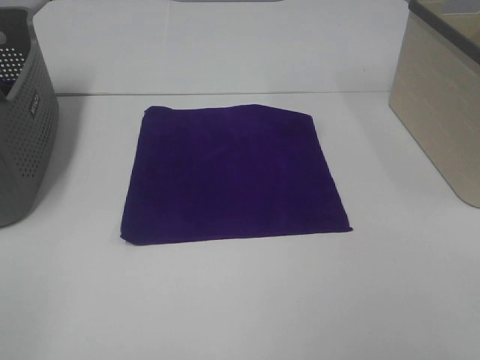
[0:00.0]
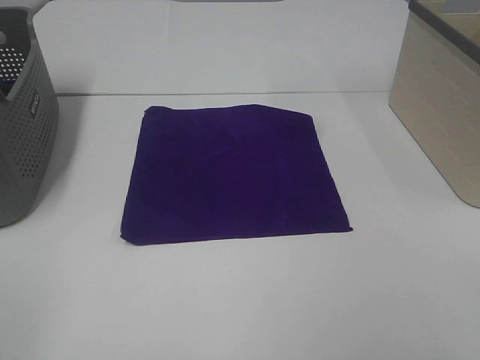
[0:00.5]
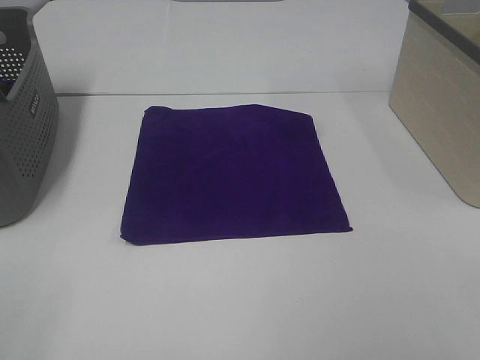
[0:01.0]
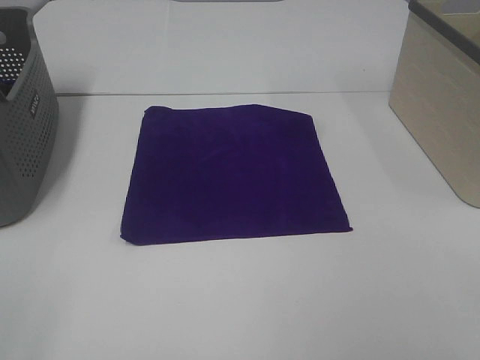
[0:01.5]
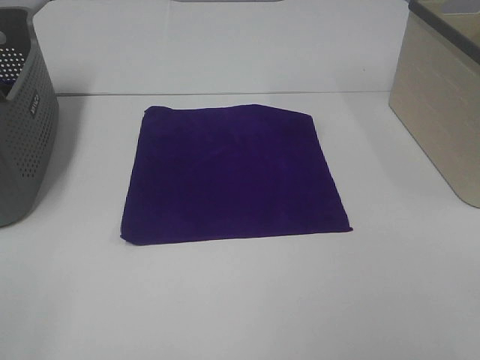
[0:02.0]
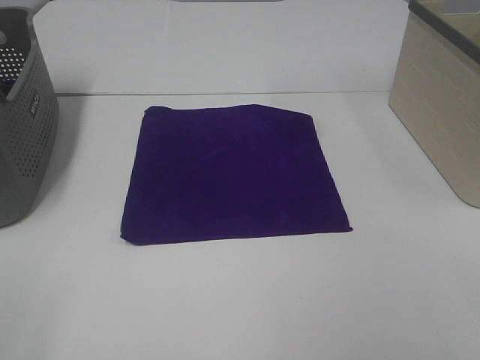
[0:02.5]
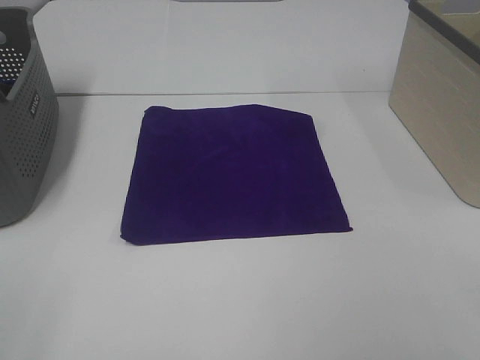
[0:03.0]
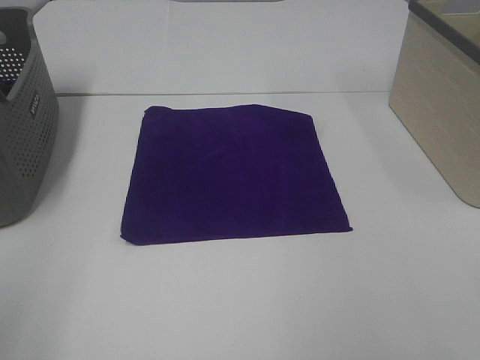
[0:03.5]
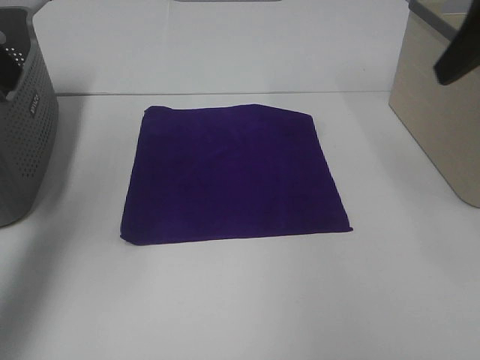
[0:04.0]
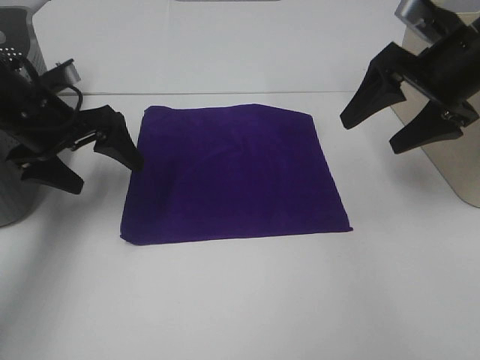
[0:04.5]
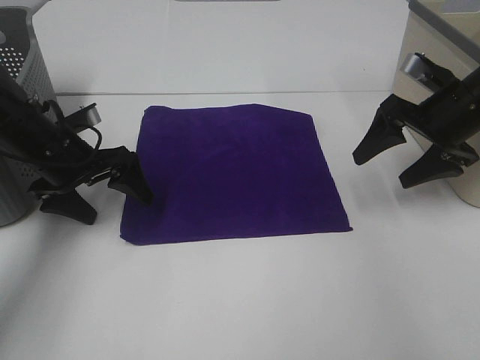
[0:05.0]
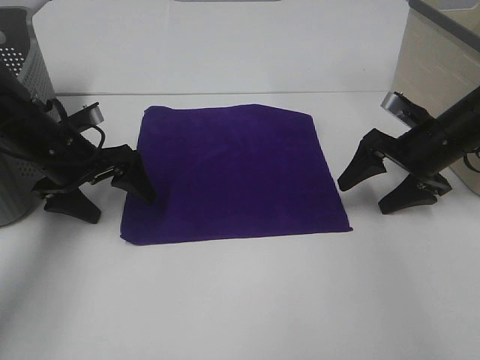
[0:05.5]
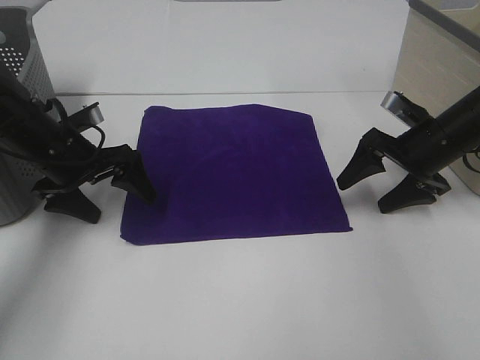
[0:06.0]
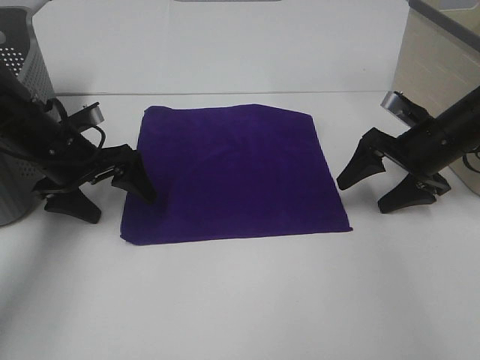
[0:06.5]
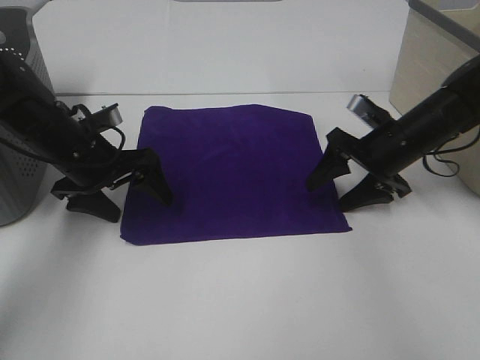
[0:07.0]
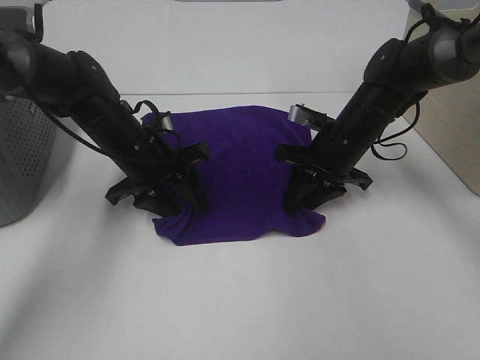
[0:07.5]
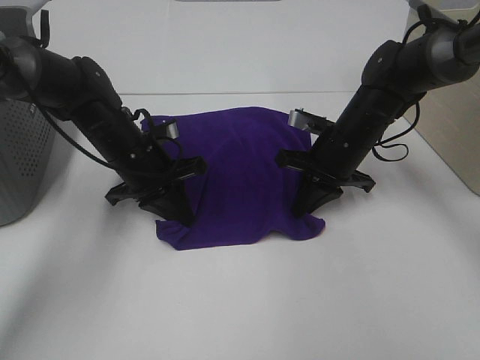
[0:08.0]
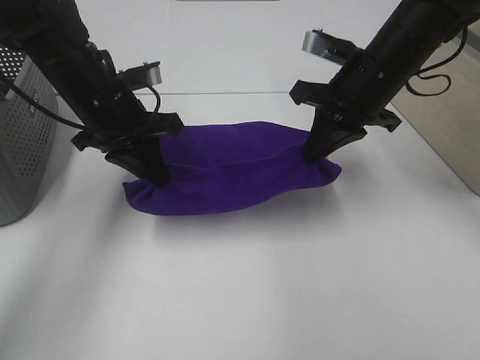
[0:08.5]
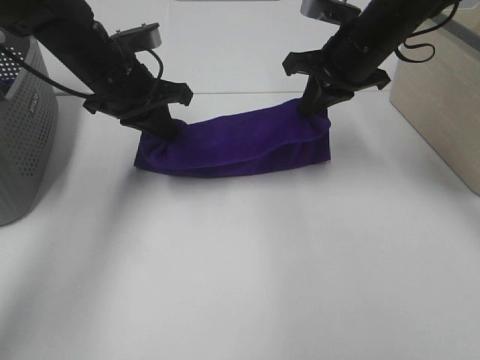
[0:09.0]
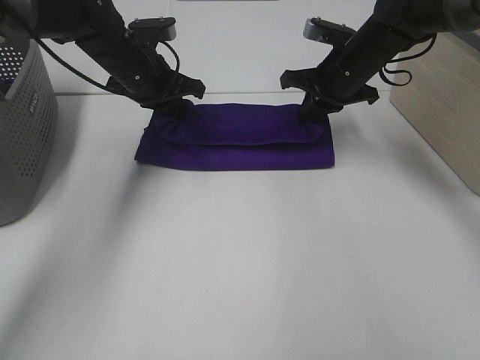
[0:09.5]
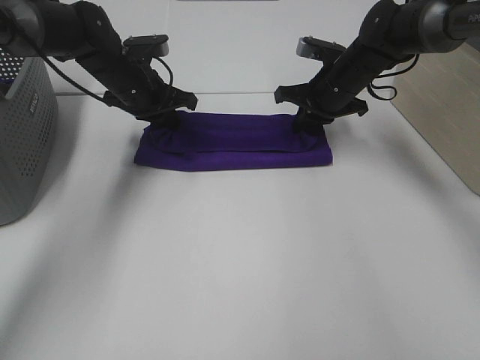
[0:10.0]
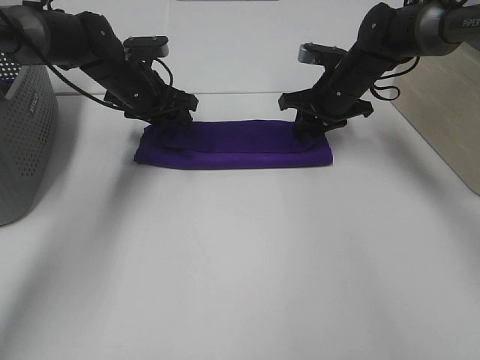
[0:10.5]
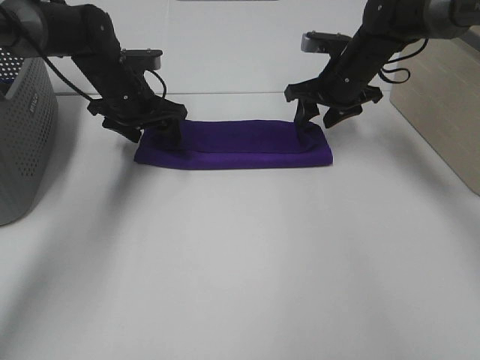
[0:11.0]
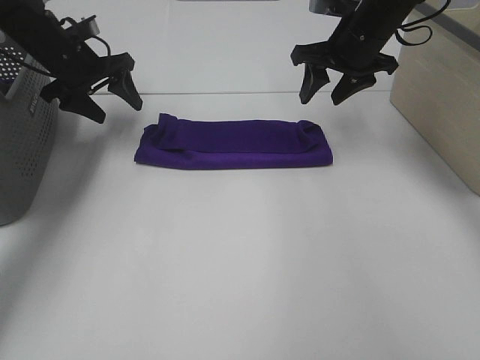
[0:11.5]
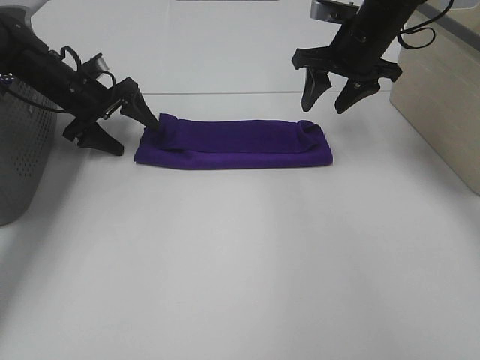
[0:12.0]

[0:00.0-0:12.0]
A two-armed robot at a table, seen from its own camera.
Task of the whole recording: Fold towels.
Step, 0:00.0 to 0:07.5: Left hand: grab the bottom left corner of purple towel.
Step, 0:00.0 to 0:07.5: Right hand: grab the bottom right corner of purple towel.
Step, 0:08.0 to 0:10.0: Left hand: fold the purple towel up.
Step, 0:08.0 to 0:10.0: Right hand: fold the purple towel up.
0:00.0 to 0:02.0: Neither gripper changes place.
0:02.0 to 0:04.0: Both grippers travel together forward, about 25 cm.
0:04.0 to 0:06.0: Both grippers travel together downward and forward, about 25 cm.
0:06.0 to 0:08.0: The right gripper heads to the left, covering about 10 cm, and closes its fingers. The left gripper moves to the right, roughly 10 cm, and closes its fingers.
0:08.0 to 0:10.0: Both grippers travel together forward, about 10 cm. The right gripper travels upward and back again, approximately 15 cm each way.
0:10.0 to 0:12.0: The left gripper travels to the left by about 10 cm, and opens. The right gripper is displaced upward by about 10 cm, and opens.

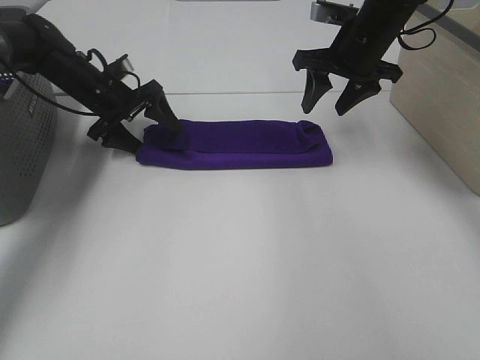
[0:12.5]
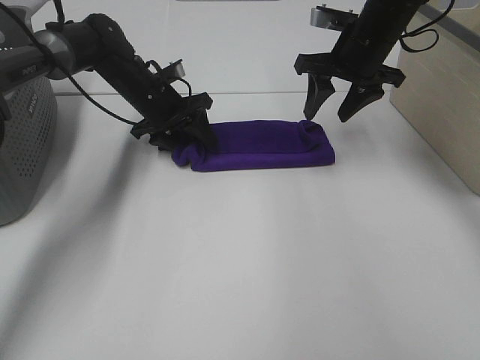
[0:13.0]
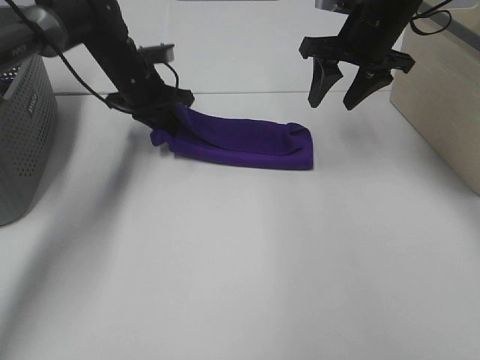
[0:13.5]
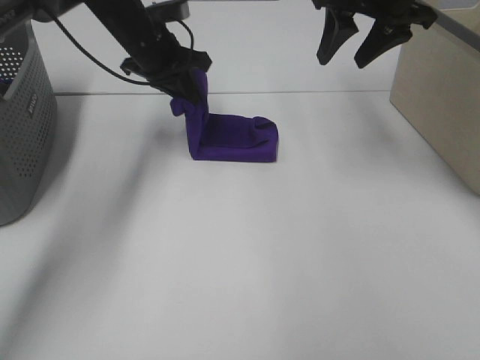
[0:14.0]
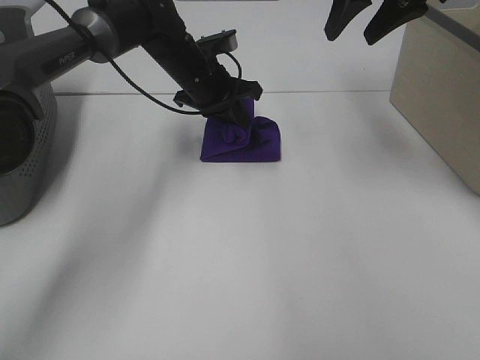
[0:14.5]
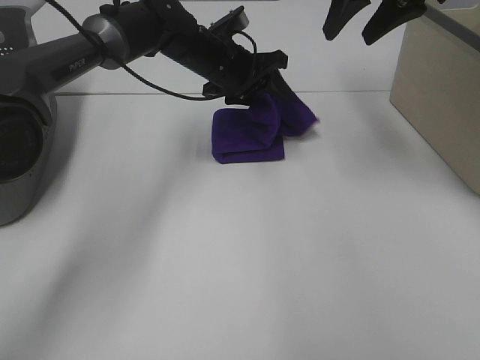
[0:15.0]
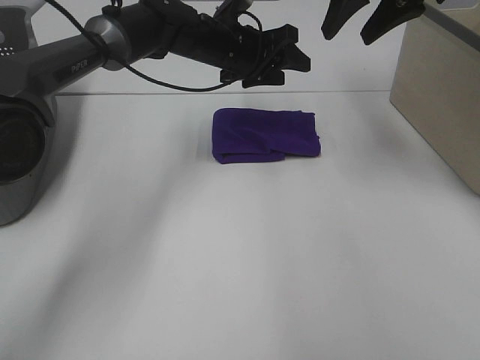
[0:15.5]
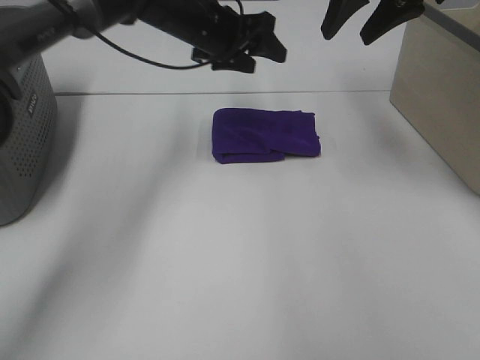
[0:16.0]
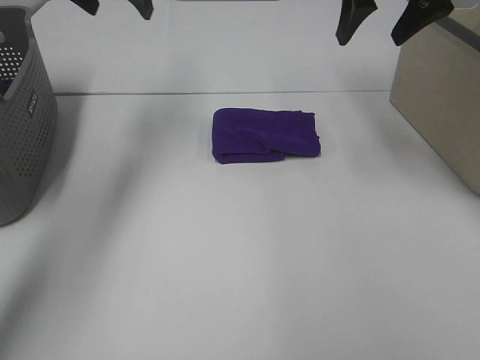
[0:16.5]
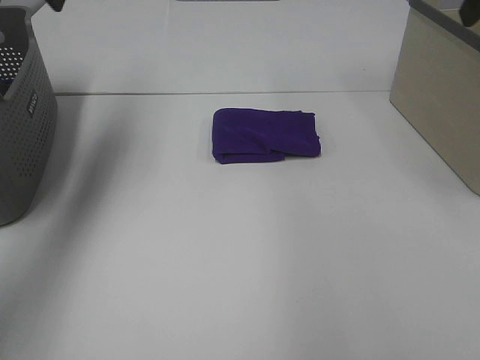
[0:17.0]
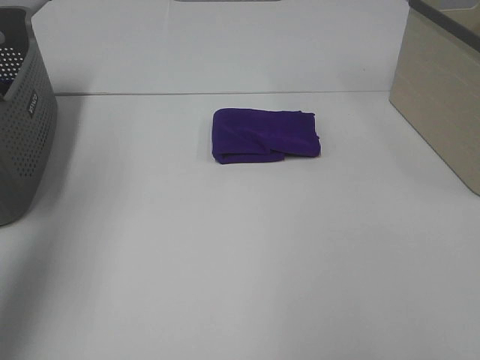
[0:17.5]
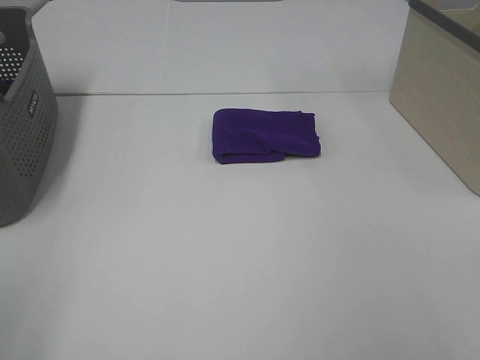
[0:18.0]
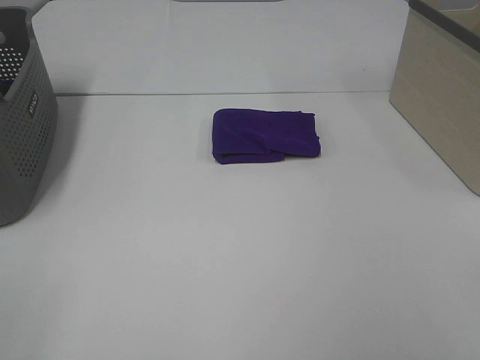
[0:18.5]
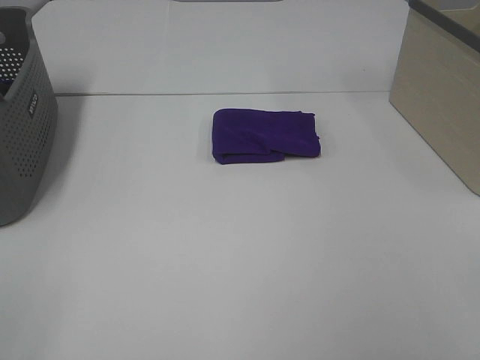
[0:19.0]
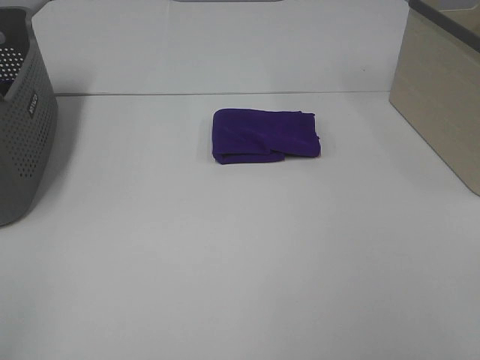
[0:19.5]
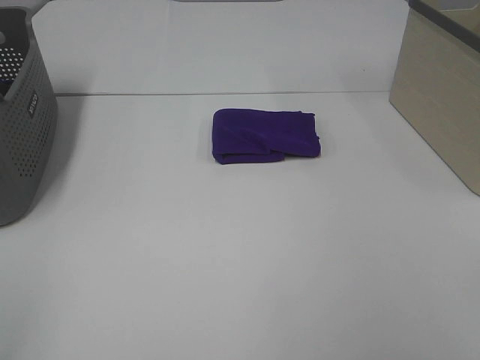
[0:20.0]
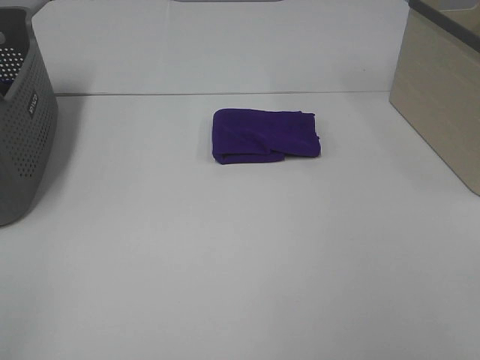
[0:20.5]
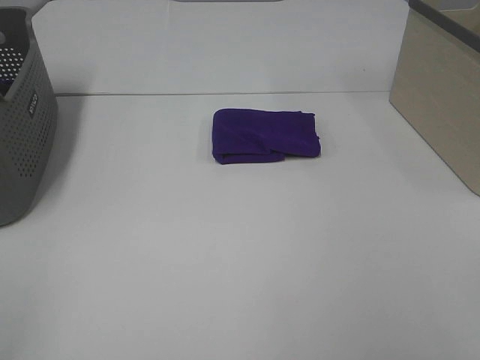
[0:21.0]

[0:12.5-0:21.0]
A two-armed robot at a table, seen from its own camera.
Task of the whole recording: Fold towels.
Step, 0:12.5 to 0:14.5: Left hand: fold the purple towel from left to right.
0:12.5 to 0:14.5: The left gripper travels to the right by approximately 15 cm, and closes up; the right gripper goes roughly 15 cm upward and backward.
0:14.5 to 0:16.5: The left gripper moves upward and to the left, some 20 cm, and opens.
0:16.5 to 0:19.0: Both grippers travel together backward, about 50 cm.
